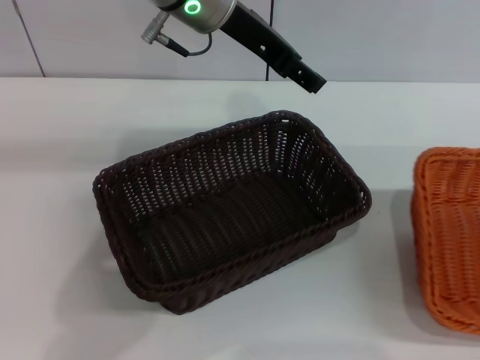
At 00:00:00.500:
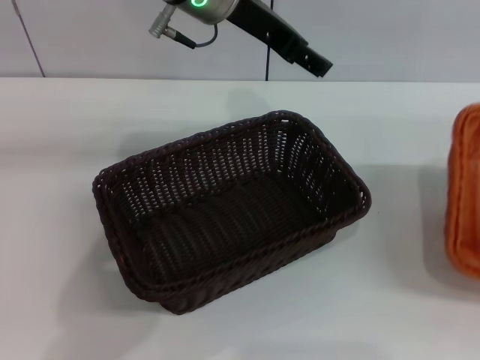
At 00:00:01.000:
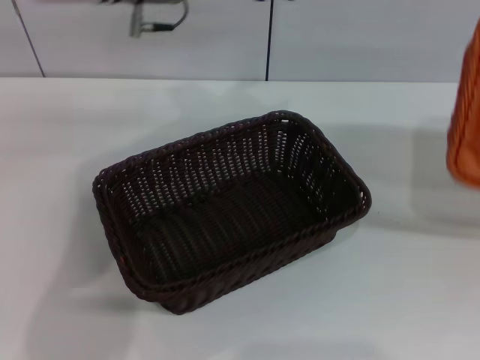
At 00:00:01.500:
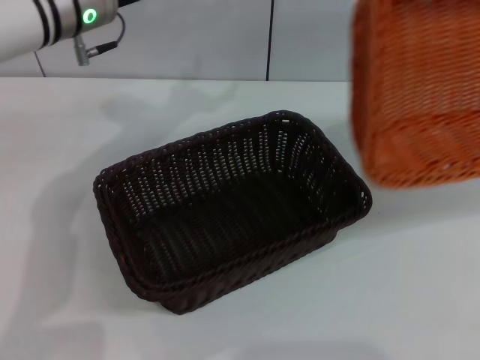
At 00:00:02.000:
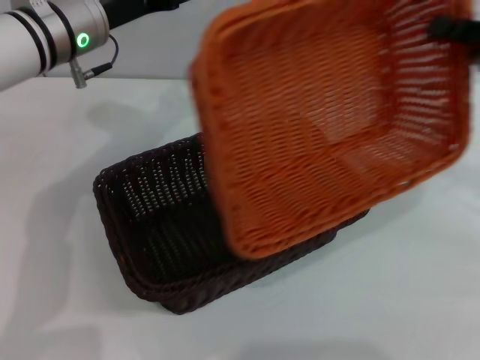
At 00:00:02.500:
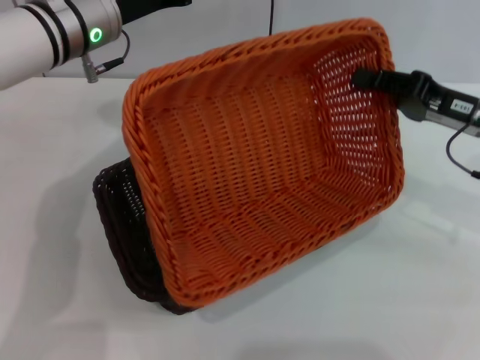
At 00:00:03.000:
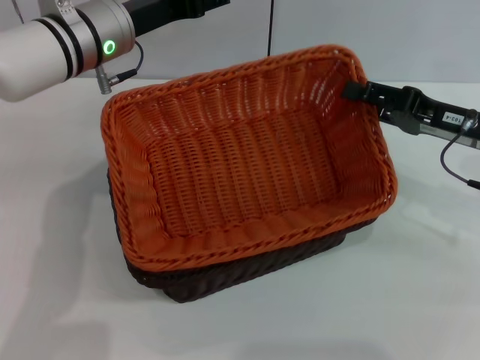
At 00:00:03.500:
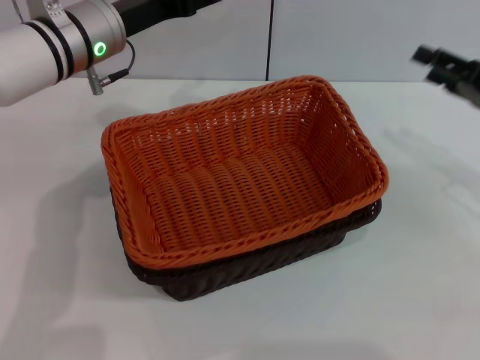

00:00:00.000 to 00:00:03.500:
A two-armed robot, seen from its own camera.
Step, 00:00:01.000 to 00:00:03.000: Place the light basket on the dark basket with the right gripper.
00:00:00.000 to 00:00:02.000: The right gripper is displaced to the left and forward by some 20 cm. The left gripper shifts roughly 15 cm to the left and downward.
00:00:02.000 to 00:00:03.500: The right gripper opens its fingers.

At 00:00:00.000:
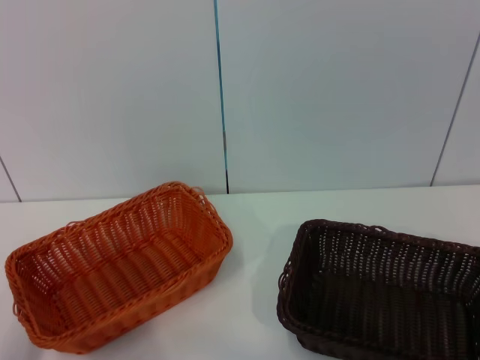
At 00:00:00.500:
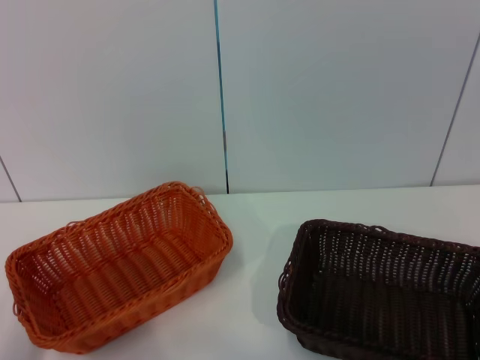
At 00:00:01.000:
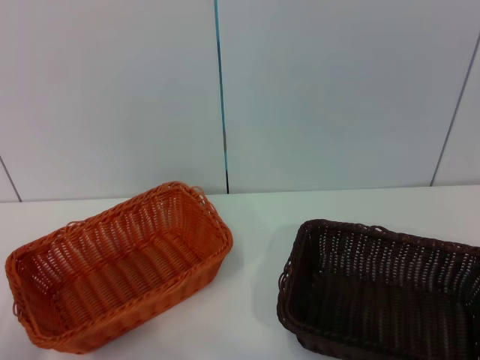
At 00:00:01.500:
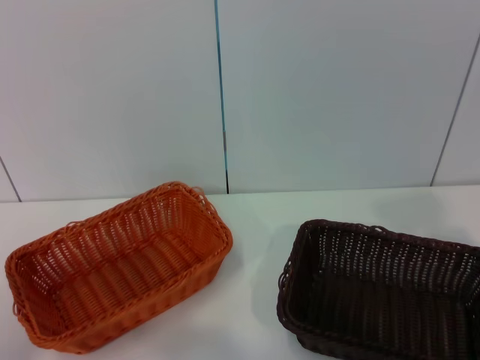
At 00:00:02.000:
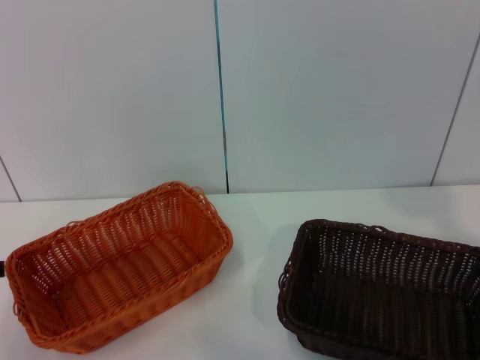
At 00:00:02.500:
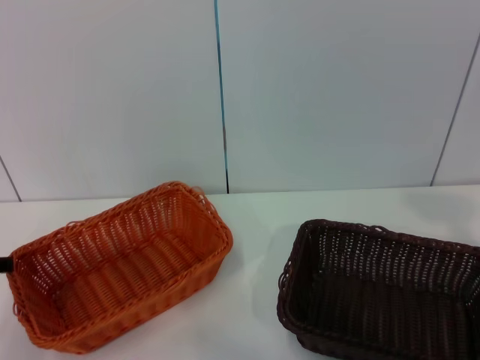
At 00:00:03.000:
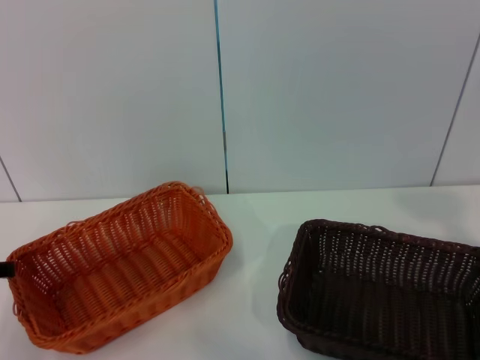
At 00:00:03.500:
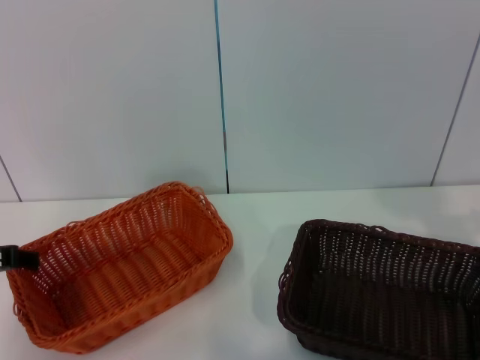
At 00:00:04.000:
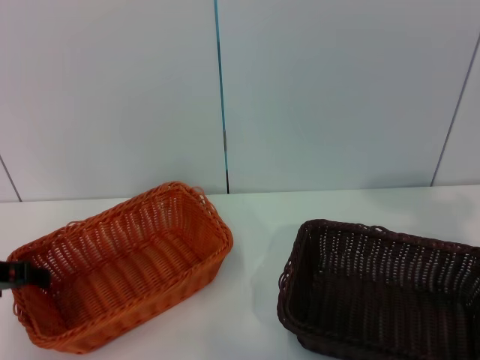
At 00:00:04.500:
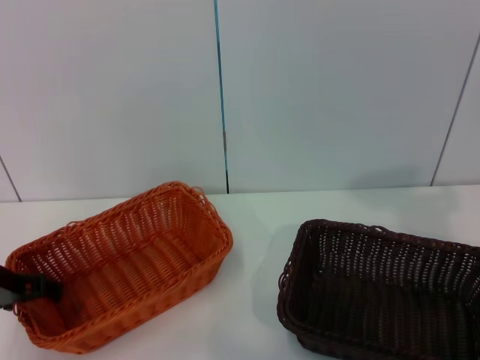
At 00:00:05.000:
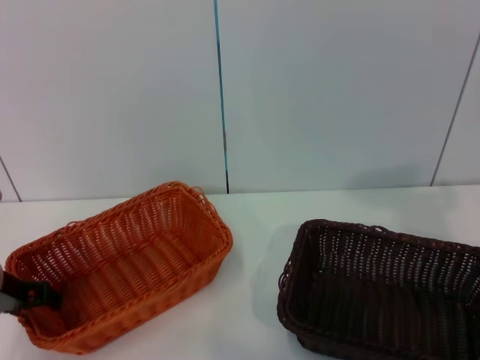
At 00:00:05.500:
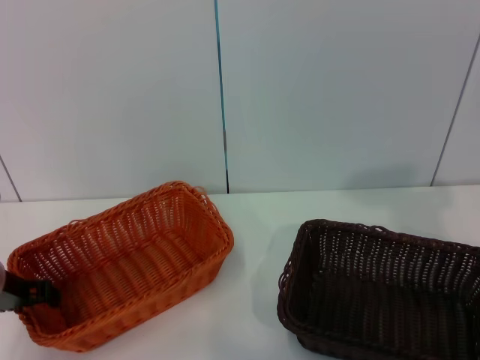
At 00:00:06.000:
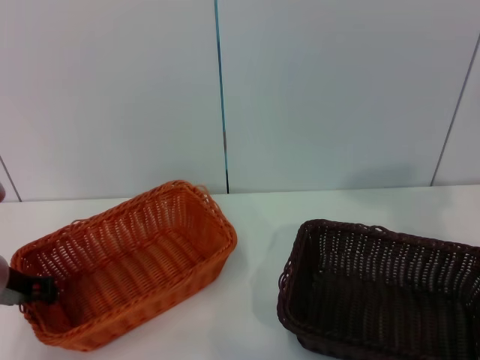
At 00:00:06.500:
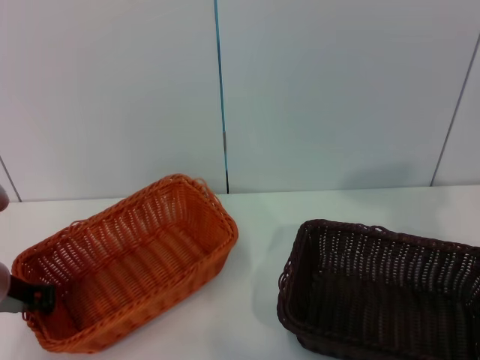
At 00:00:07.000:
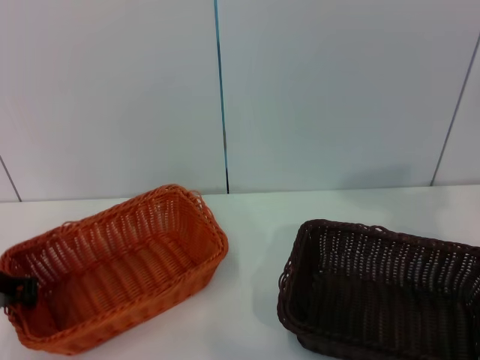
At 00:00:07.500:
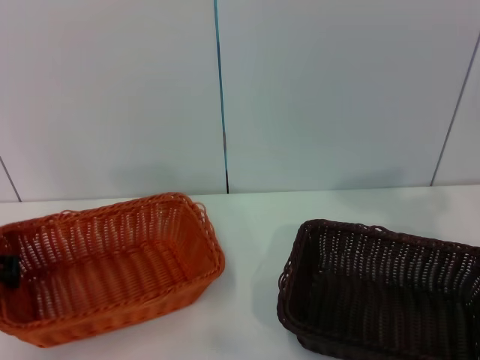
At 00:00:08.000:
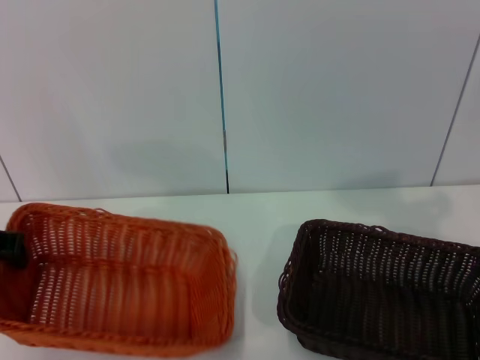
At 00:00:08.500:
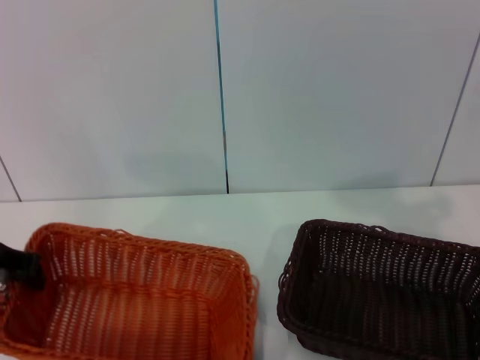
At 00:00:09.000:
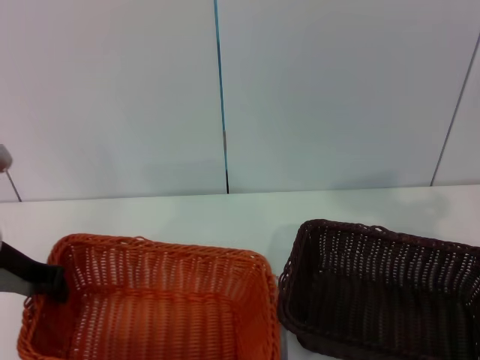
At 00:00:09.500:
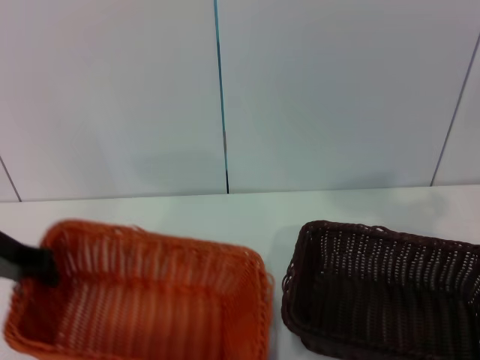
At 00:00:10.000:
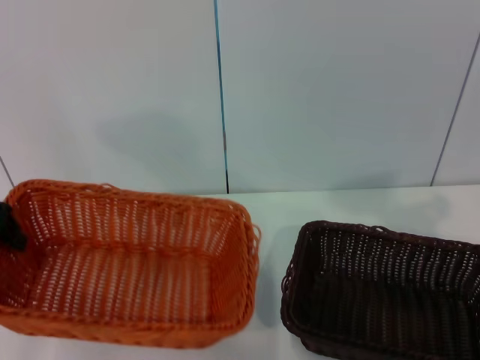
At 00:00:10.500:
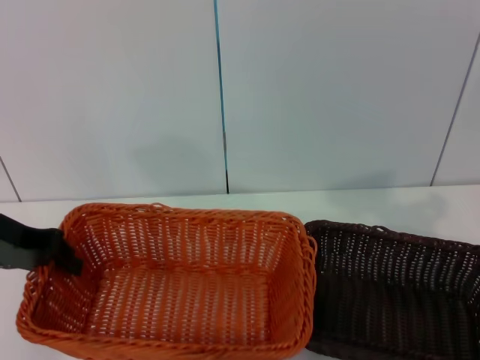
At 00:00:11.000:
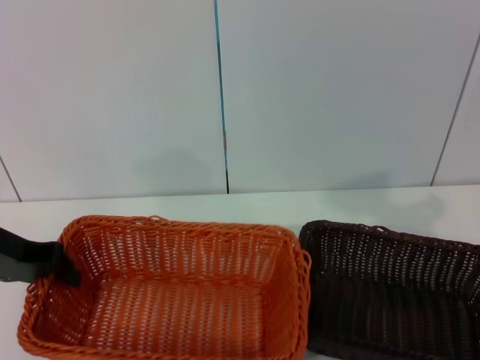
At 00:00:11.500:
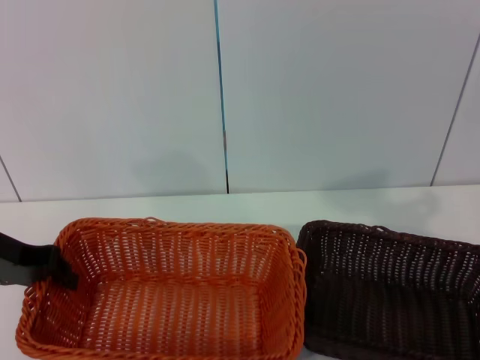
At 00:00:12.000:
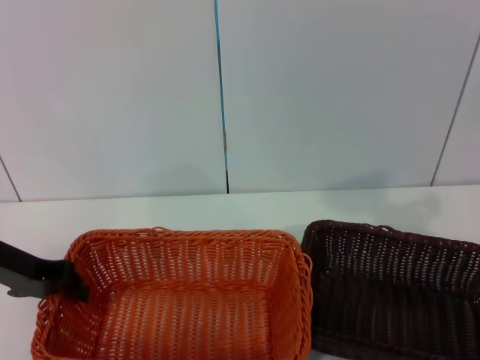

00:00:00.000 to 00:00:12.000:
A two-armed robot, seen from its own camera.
Step, 00:00:00.000 to 00:00:07.500: Pick up the light basket with the left gripper.
00:00:04.000 to 00:00:06.000: There are only small adjustments of the grippers.
00:00:06.000 to 00:00:08.000: The left gripper moves upward, some 10 cm, and closes.
00:00:08.000 to 00:00:10.000: The left gripper moves upward, some 5 cm.
00:00:10.000 to 00:00:12.000: The left gripper goes some 10 cm downward.

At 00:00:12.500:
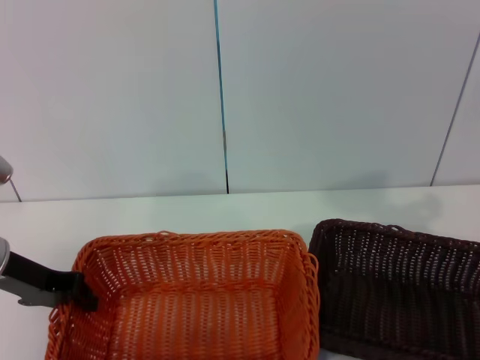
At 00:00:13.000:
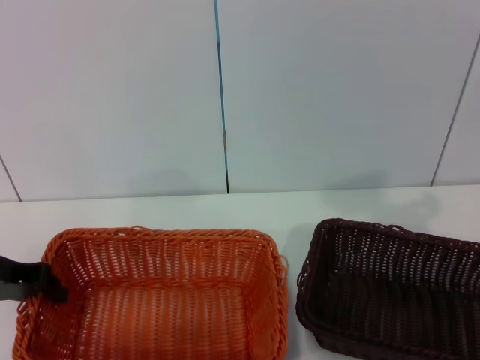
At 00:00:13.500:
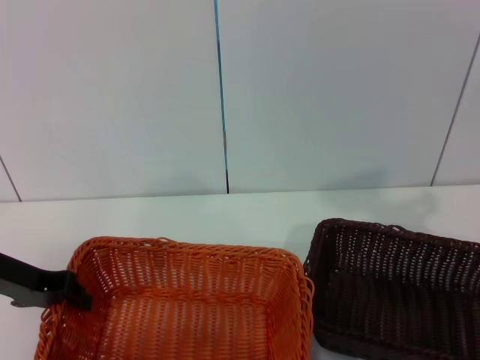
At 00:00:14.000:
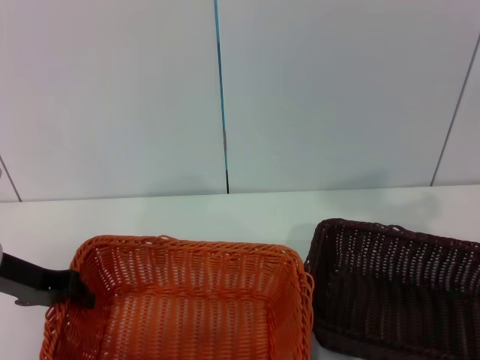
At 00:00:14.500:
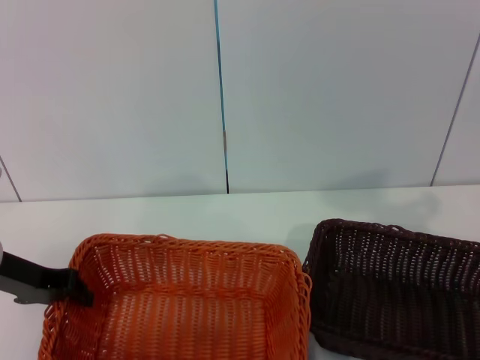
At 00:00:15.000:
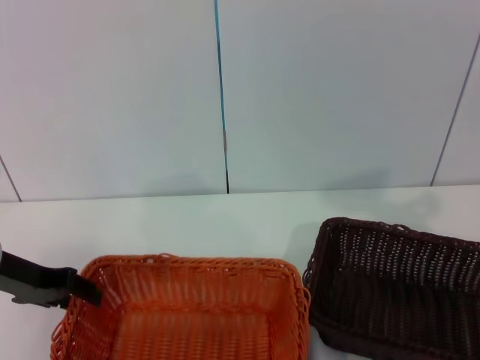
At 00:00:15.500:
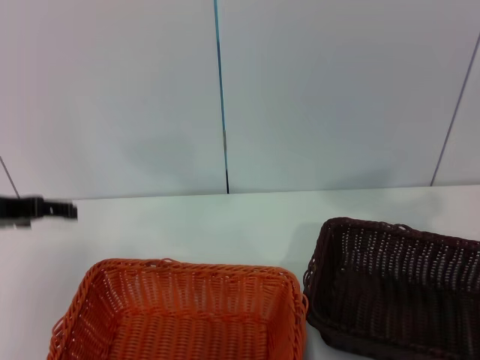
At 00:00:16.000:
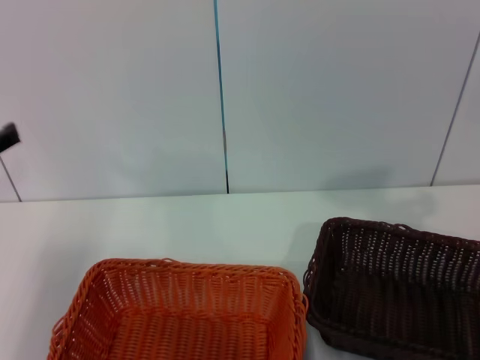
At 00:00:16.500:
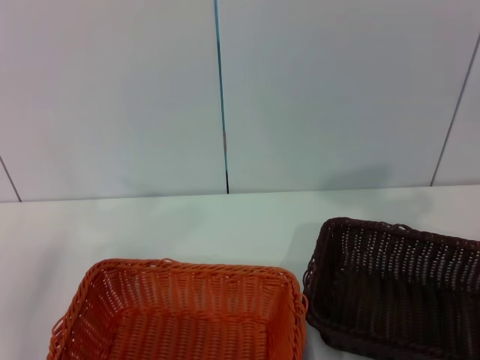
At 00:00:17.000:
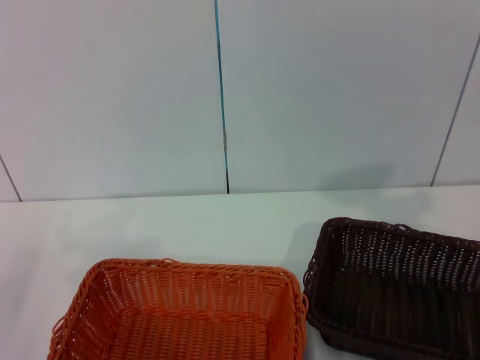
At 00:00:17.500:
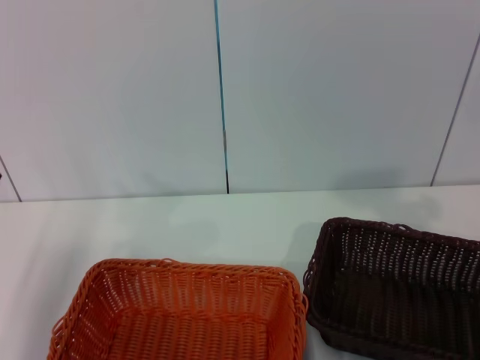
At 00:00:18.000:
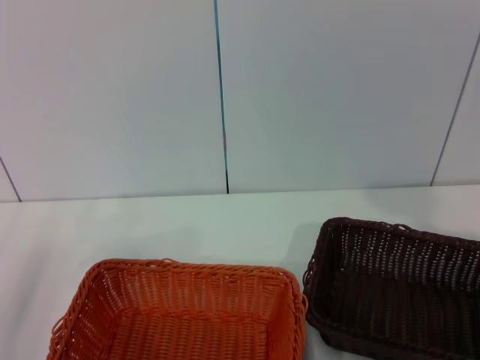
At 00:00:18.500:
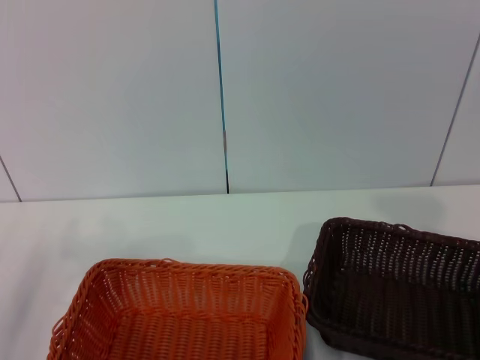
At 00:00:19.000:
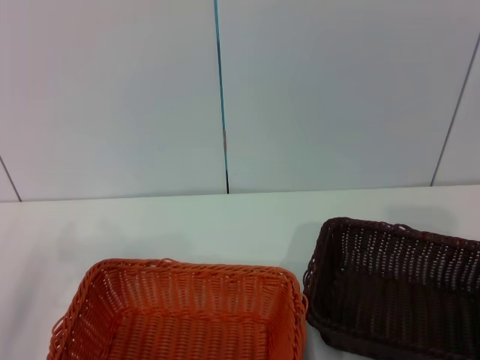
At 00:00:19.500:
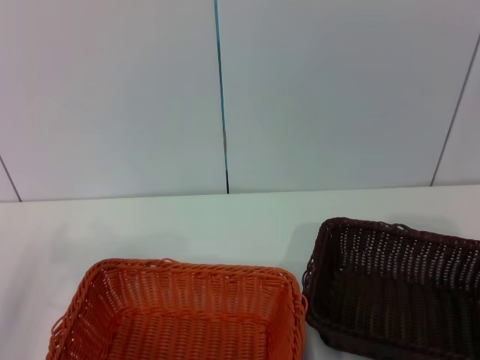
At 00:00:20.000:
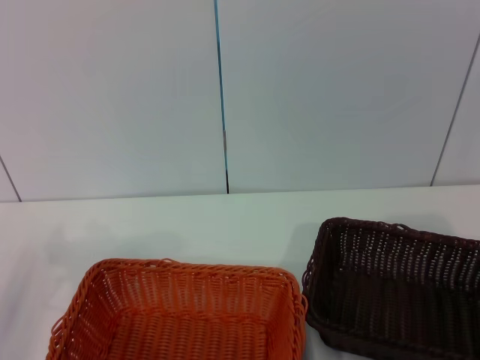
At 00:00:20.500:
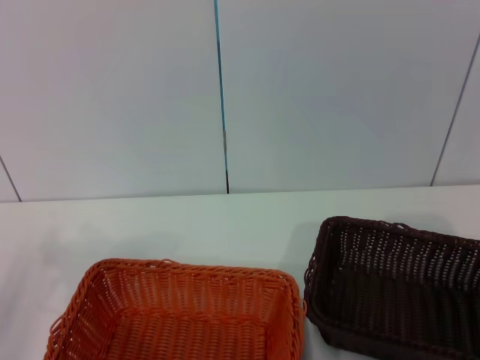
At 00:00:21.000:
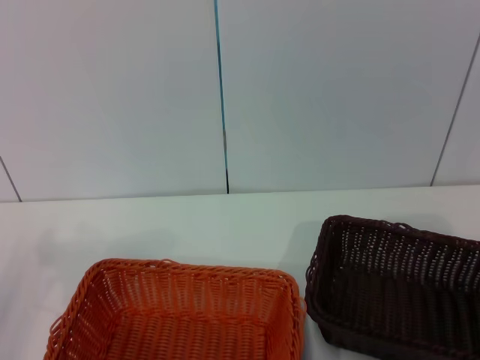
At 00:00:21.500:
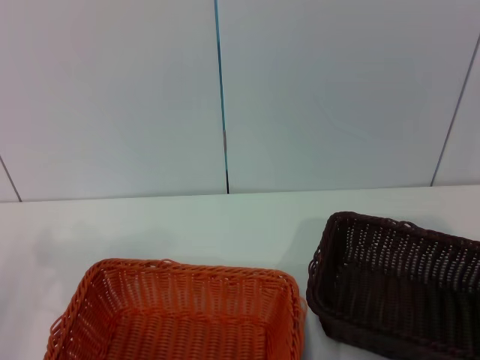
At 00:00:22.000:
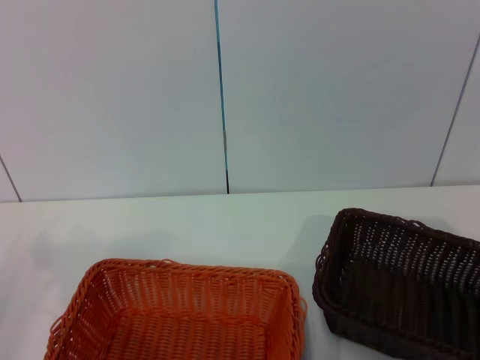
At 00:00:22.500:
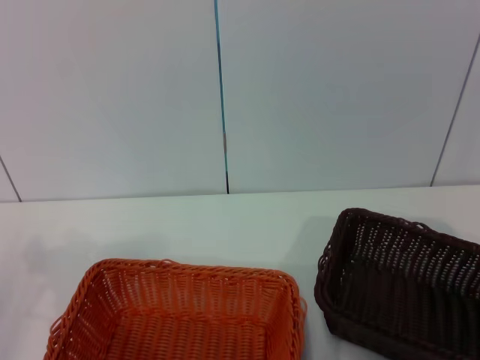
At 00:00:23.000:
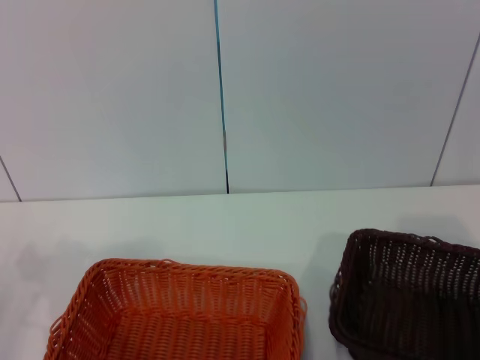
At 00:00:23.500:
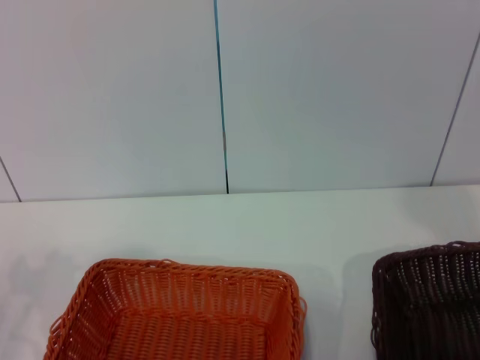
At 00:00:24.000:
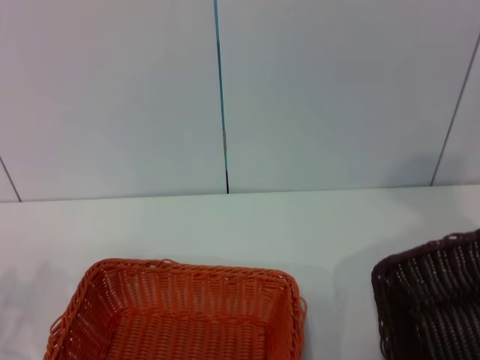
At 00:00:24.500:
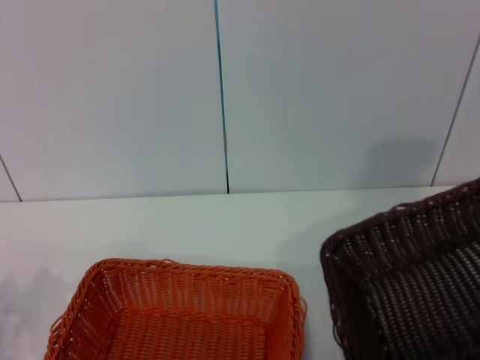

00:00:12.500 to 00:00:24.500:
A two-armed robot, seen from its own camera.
Step, 00:00:12.500 to 00:00:15.000: Place the light basket in the center of view with the left gripper.
Step, 00:00:15.500 to 00:00:22.500: Pick up the dark basket with the right gripper.
00:00:12.500 to 00:00:14.500: There are only small adjustments of the grippers.
00:00:14.500 to 00:00:16.500: The left gripper travels backward by approximately 5 cm, and opens its fingers.
00:00:18.500 to 00:00:20.500: The right gripper goes roughly 5 cm downward.
00:00:20.500 to 00:00:22.500: The right gripper closes up.
00:00:22.500 to 00:00:24.500: The right gripper moves upward, about 15 cm.
